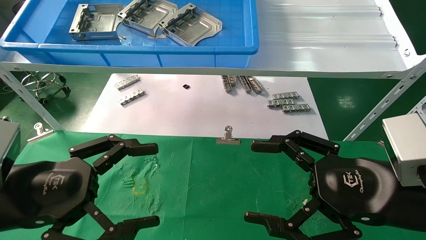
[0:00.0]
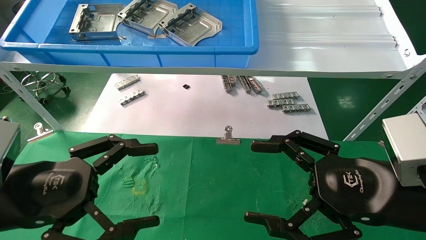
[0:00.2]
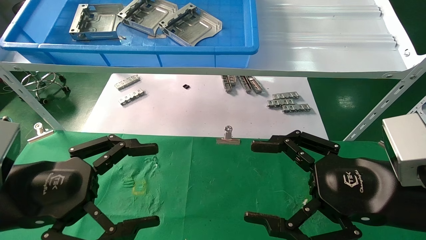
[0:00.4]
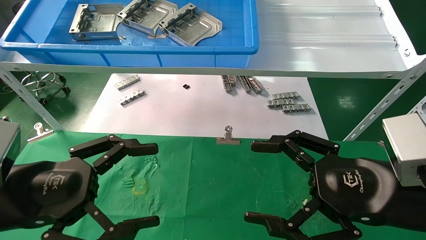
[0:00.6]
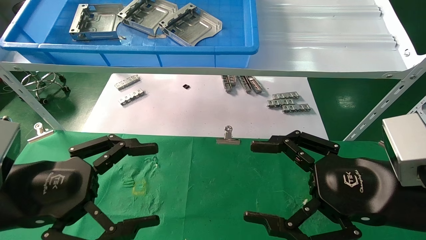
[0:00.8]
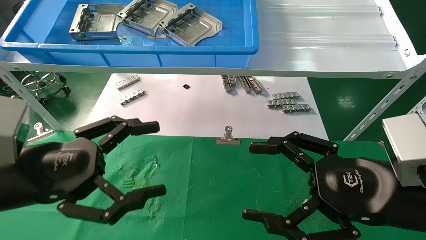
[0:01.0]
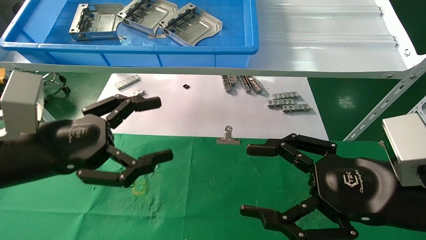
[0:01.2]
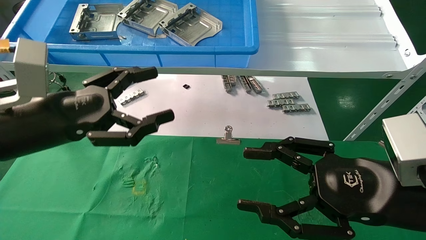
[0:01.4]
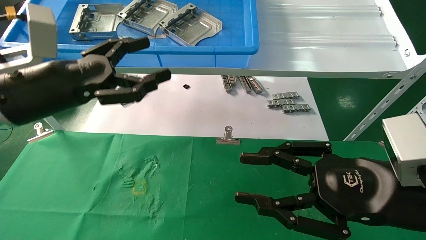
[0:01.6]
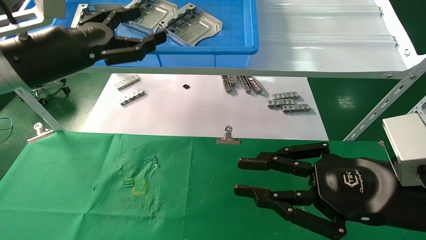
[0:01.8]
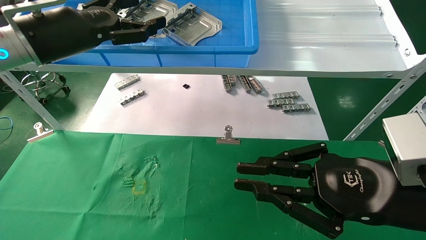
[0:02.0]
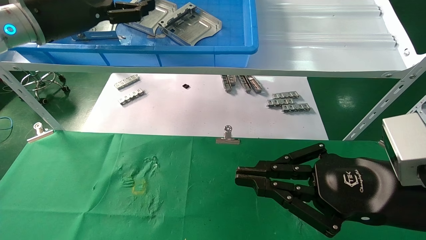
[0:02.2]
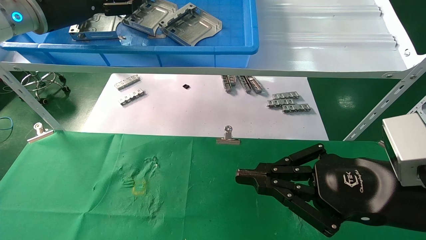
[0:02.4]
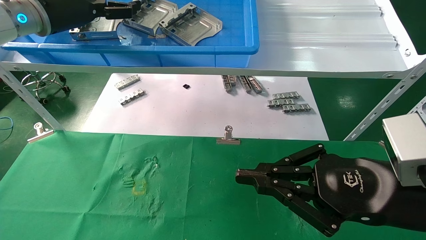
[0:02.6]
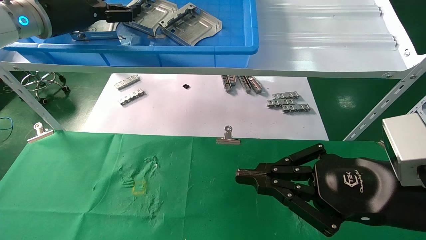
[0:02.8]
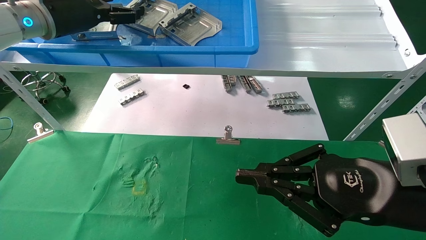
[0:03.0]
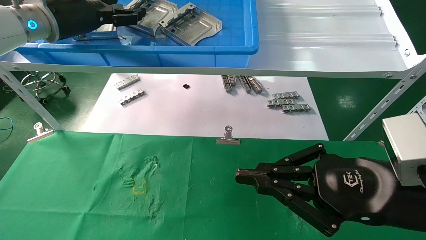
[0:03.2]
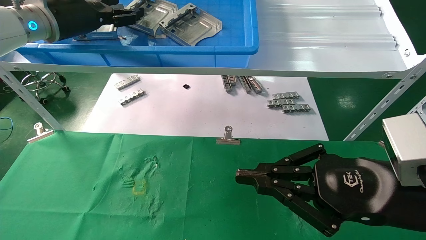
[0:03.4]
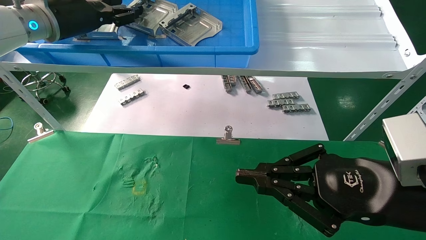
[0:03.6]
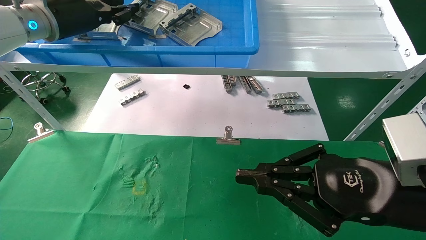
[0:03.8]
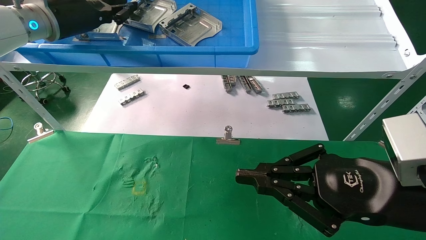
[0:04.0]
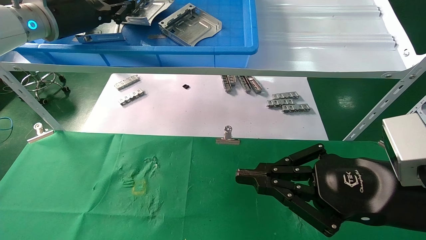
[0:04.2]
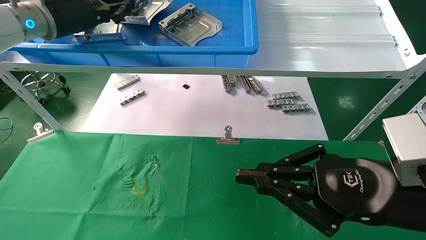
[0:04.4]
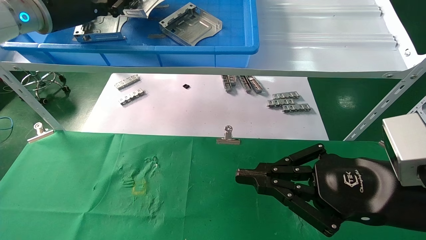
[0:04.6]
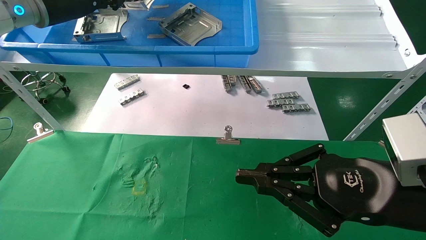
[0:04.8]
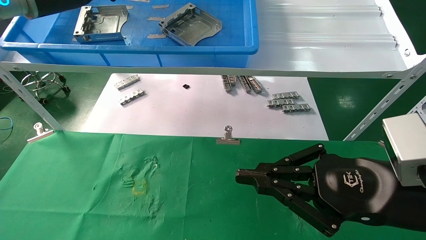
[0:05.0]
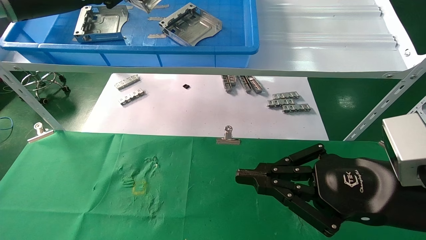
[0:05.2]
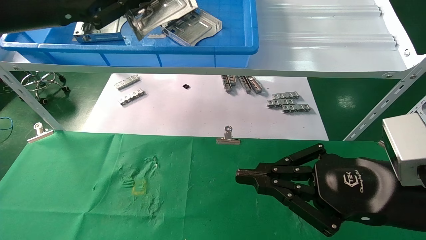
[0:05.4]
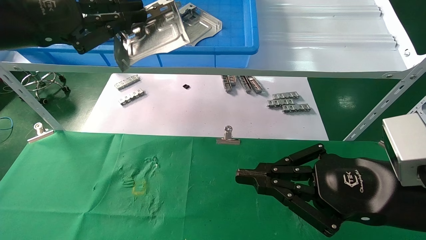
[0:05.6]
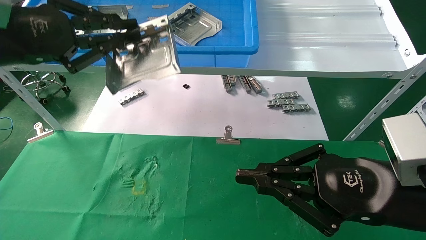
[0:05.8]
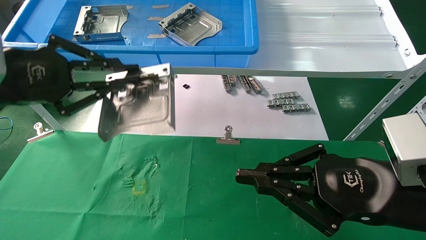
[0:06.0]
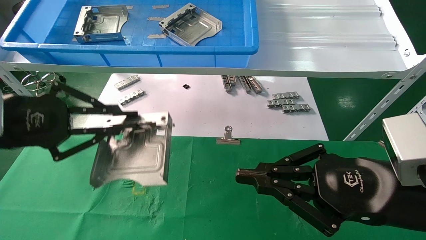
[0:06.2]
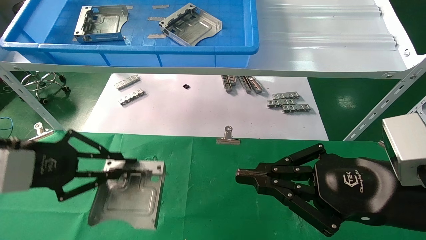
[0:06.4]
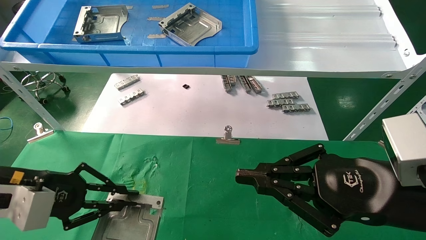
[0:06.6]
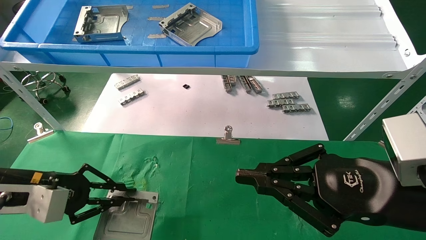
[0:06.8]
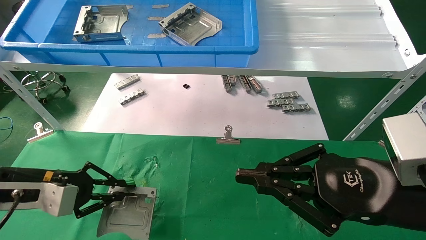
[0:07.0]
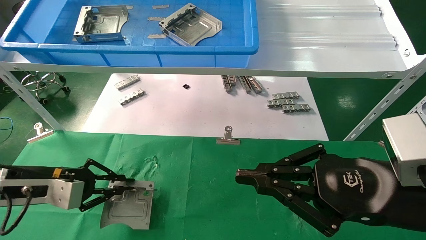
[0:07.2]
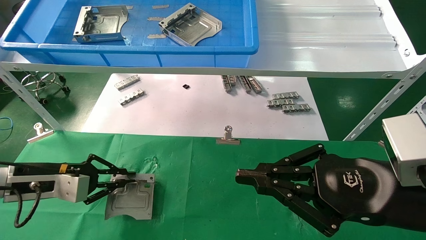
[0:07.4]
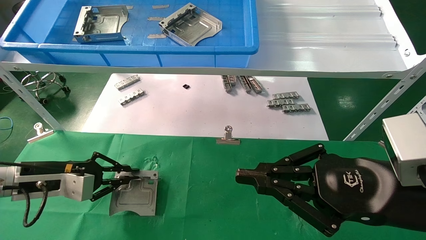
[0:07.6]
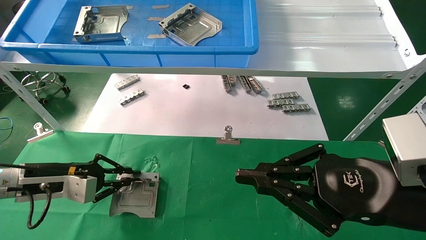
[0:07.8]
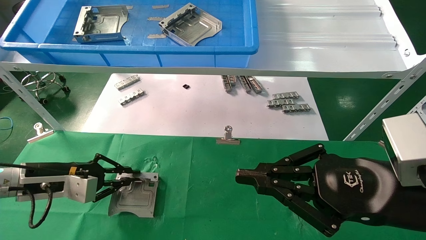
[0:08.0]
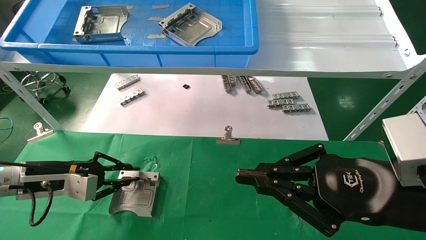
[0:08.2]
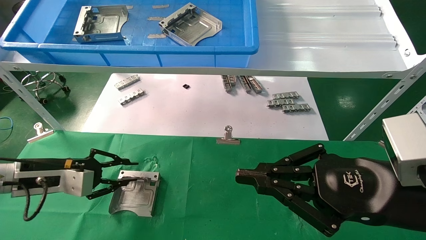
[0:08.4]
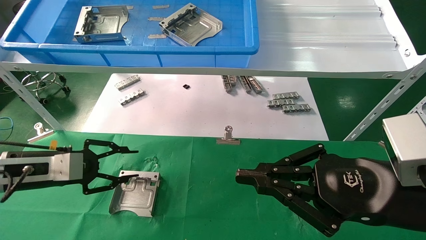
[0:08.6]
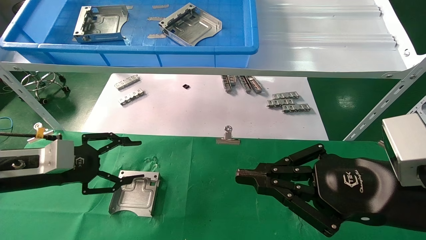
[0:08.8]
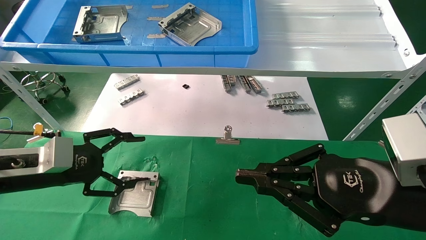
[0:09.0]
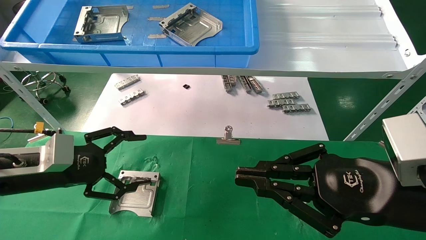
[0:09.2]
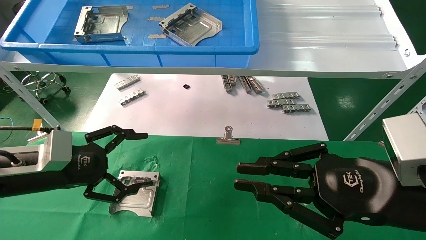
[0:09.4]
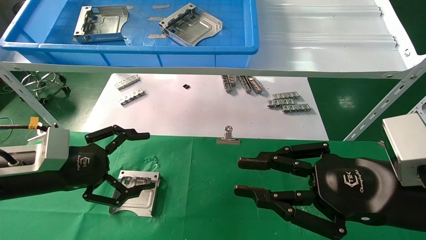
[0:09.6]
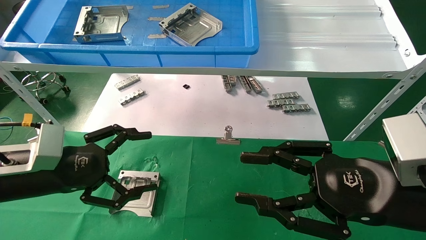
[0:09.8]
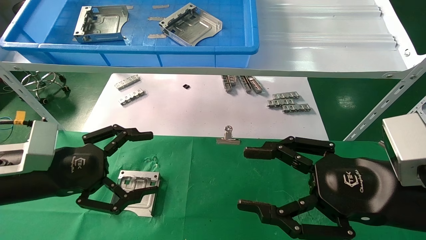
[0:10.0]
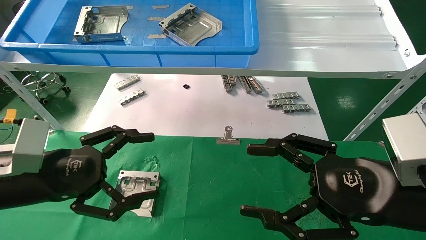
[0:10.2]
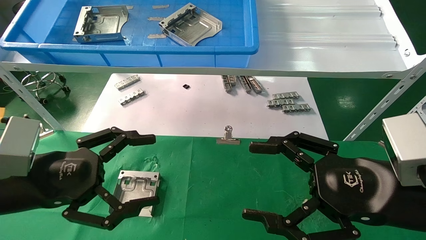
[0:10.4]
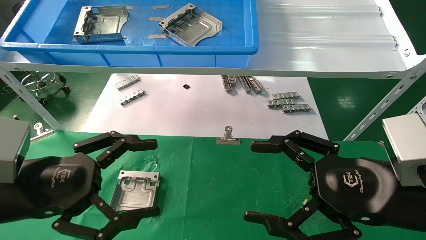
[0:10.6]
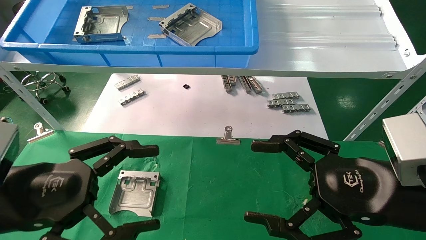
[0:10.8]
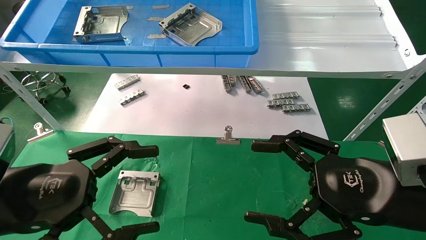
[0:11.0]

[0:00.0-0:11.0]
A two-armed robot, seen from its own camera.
Task of the whole recording: use the mechanical arm to pick up the parts and place them on the table.
Step, 0:01.2 to 0:04.2: Pick up the hard drive bracket from the feeding area.
Step, 0:04.4 to 0:08.4: Place the hard drive bracket into the box.
0:00.0 to 0:01.6: The right gripper closes. The left gripper shifts approximately 15 cm forward and upward.
0:01.6 to 0:03.2: The left gripper moves forward and upward, roughly 15 cm. Meanwhile the right gripper closes its fingers.
0:03.2 to 0:04.8: The left gripper closes.
0:04.8 to 0:06.2: The left gripper moves downward and backward, roughly 20 cm.
0:06.2 to 0:07.8: The left gripper travels downward and forward by approximately 20 cm.
0:07.8 to 0:09.4: The left gripper heads backward and upward, covering some 5 cm, and opens its fingers.
0:09.4 to 0:11.0: The right gripper opens up. Meanwhile the left gripper heads backward, covering roughly 10 cm.

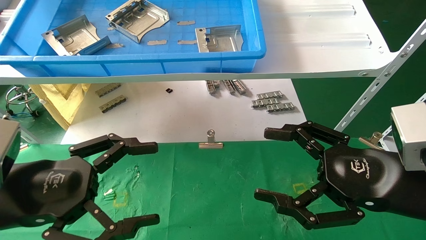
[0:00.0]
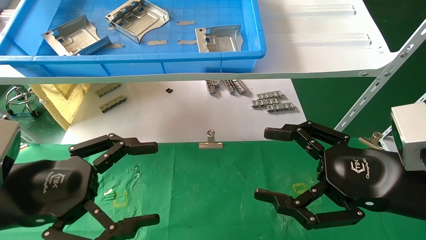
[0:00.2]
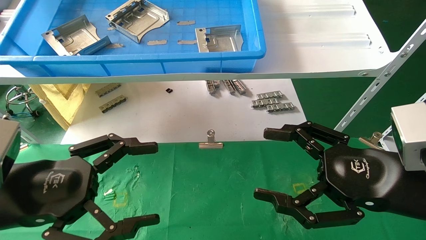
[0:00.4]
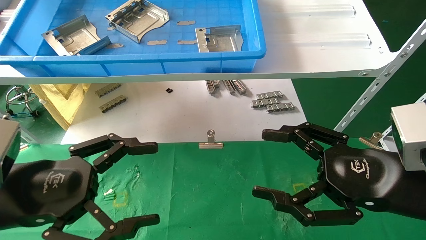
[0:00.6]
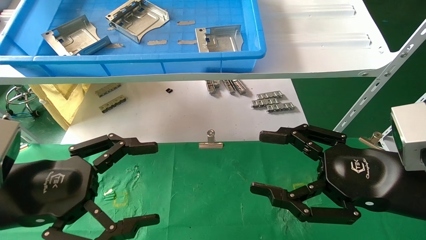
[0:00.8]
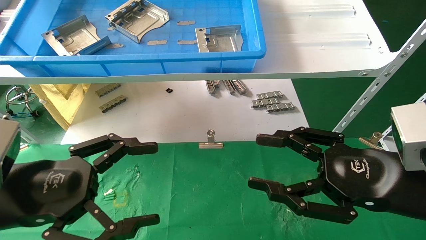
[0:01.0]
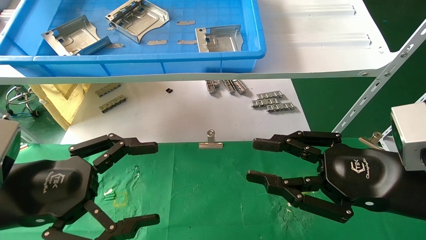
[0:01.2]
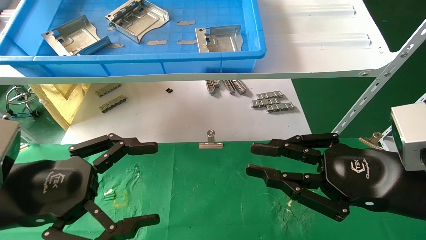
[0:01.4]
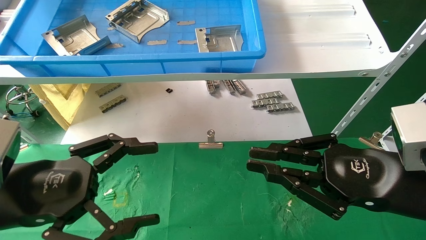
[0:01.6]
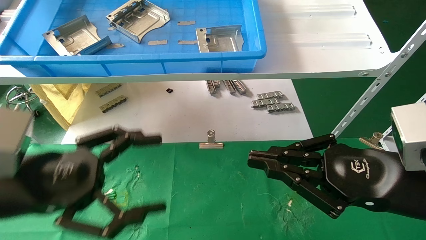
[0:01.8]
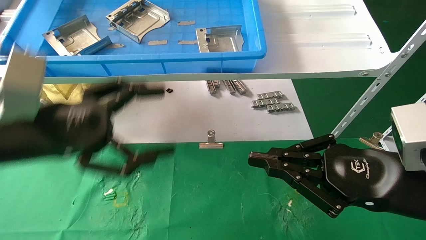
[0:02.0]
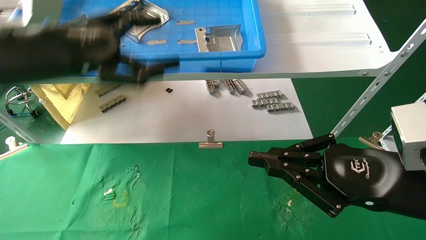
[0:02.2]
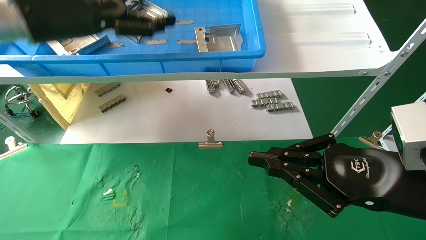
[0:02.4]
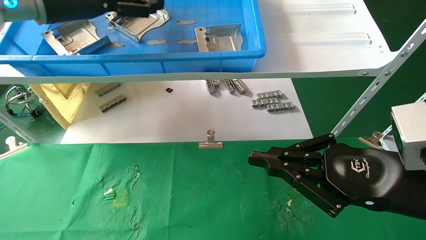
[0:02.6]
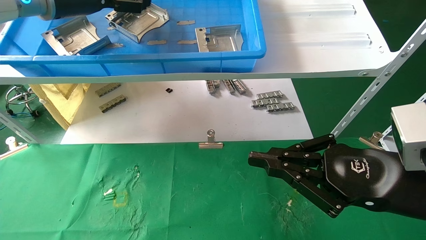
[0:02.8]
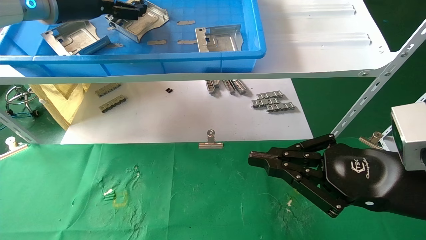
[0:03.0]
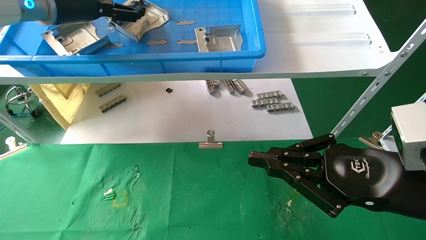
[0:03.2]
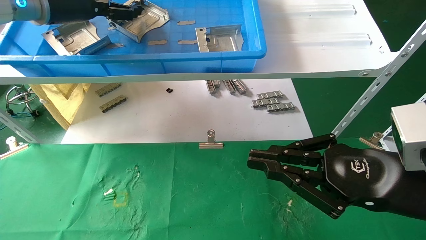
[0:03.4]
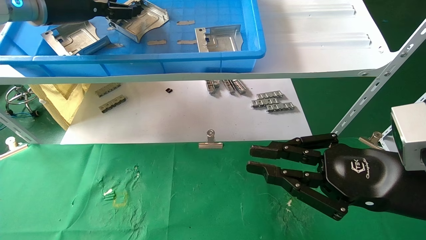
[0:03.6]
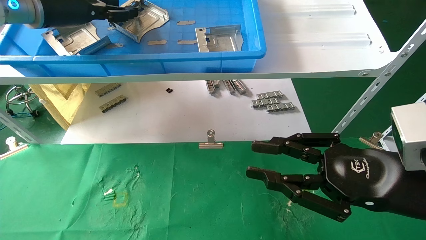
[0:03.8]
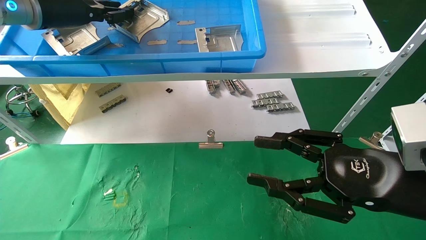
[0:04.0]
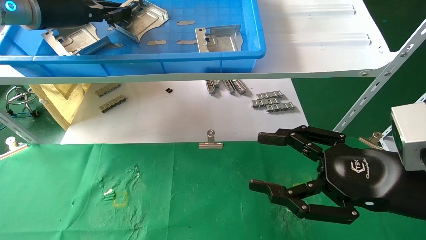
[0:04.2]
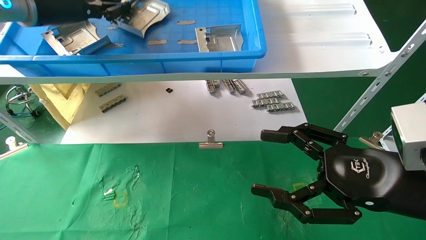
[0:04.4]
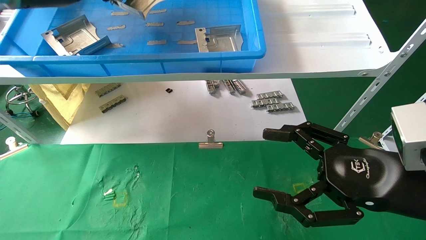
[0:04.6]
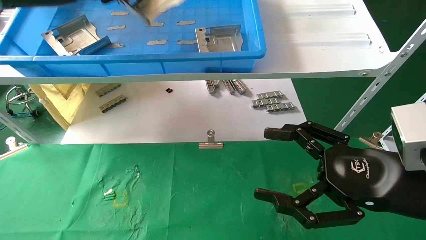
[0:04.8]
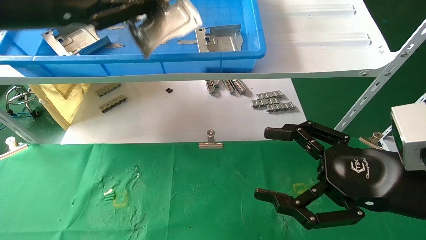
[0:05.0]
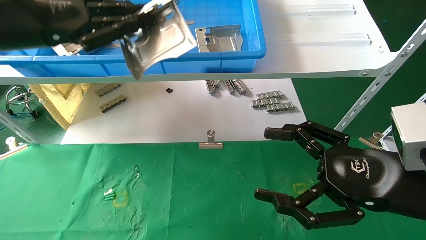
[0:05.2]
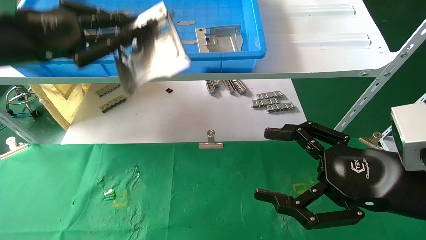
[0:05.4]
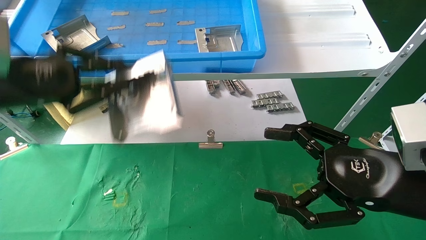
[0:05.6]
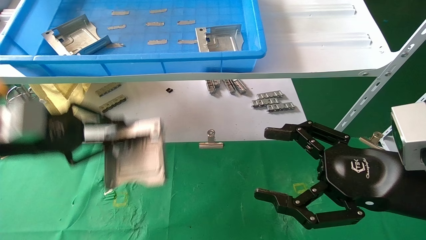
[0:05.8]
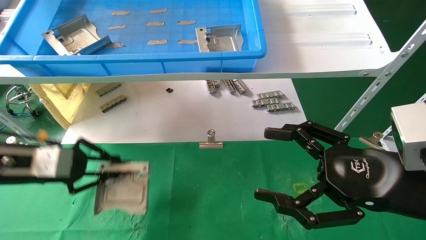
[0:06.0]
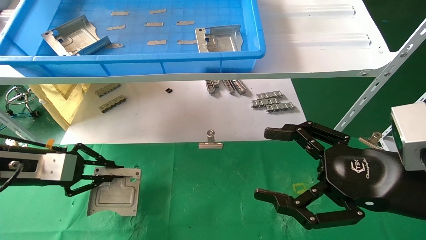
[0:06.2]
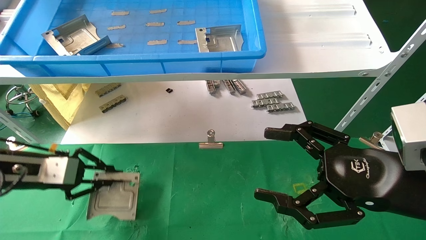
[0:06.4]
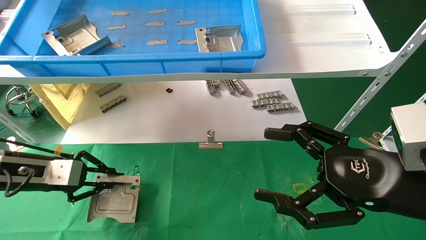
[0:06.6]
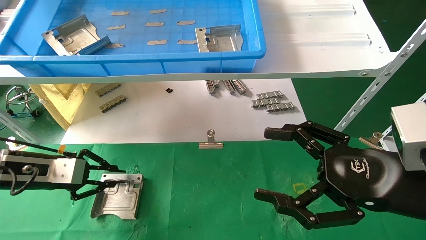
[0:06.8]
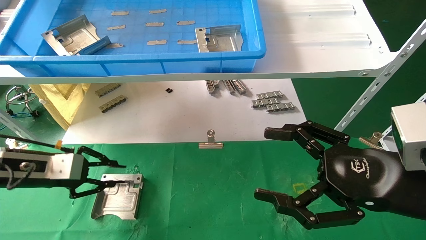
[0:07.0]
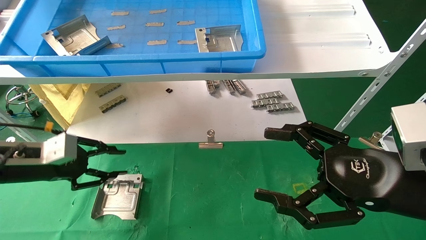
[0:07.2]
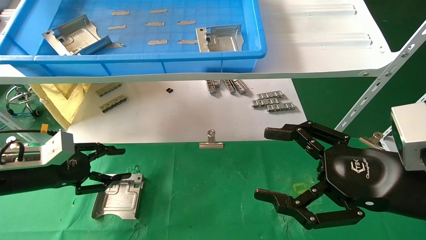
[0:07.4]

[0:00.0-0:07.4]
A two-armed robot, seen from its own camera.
Task of the whole recording: use the mechanical arm to pick up the parts and place them on the table.
Step, 0:01.6 to 0:04.2: Pick up the hard drive bracket from the feeding area.
Step, 0:04.4 to 0:07.0: Place the hard drive bracket into the box.
0:00.0 to 0:01.4: The right gripper closes.
0:01.4 to 0:03.0: The right gripper closes. Meanwhile the left gripper travels upward and forward by some 35 cm.
0:03.0 to 0:04.4: The left gripper closes, while the right gripper opens its fingers.
0:04.4 to 0:06.0: The left gripper goes approximately 25 cm downward.
0:06.0 to 0:07.4: The left gripper moves downward, some 5 cm, and opens its fingers.
